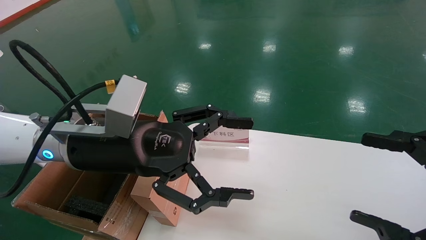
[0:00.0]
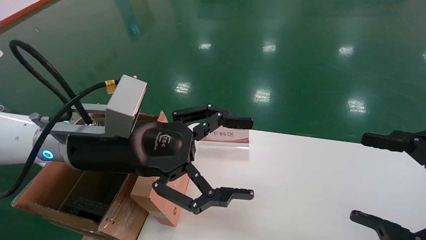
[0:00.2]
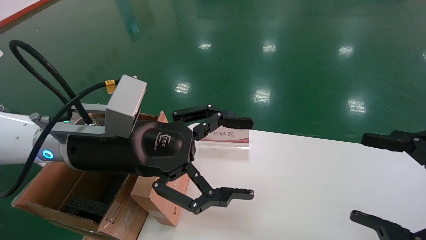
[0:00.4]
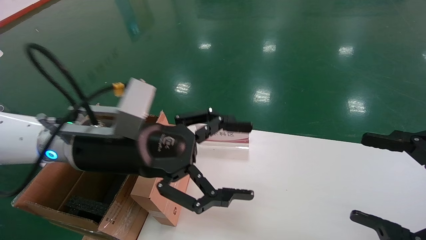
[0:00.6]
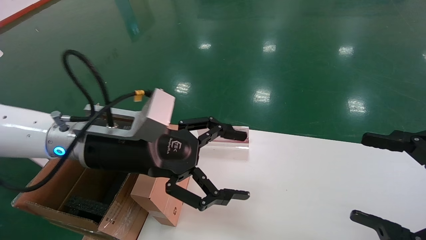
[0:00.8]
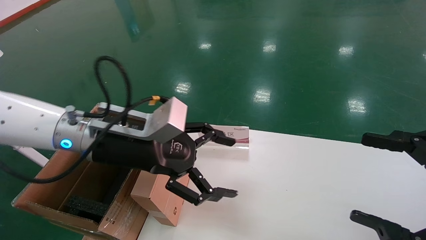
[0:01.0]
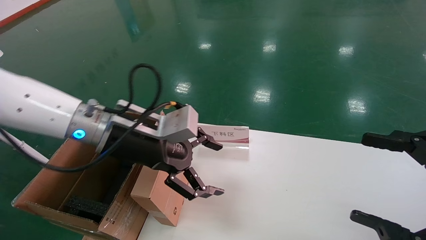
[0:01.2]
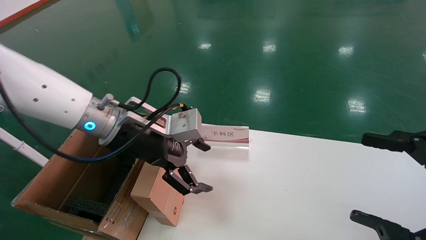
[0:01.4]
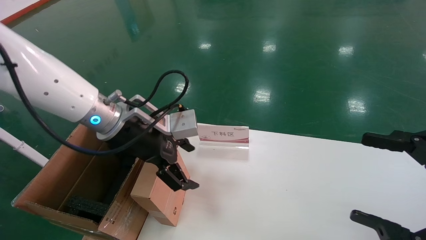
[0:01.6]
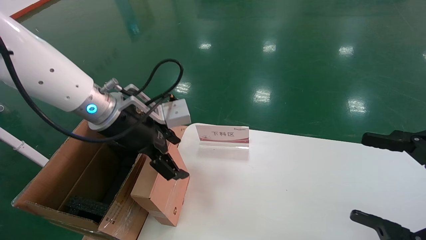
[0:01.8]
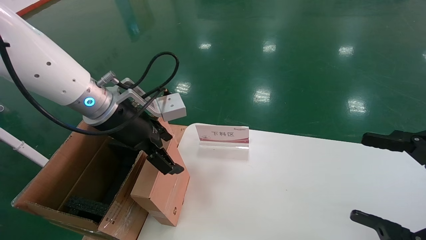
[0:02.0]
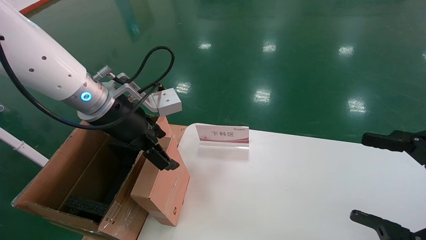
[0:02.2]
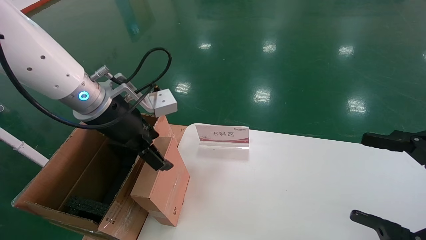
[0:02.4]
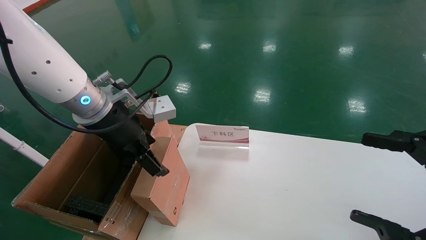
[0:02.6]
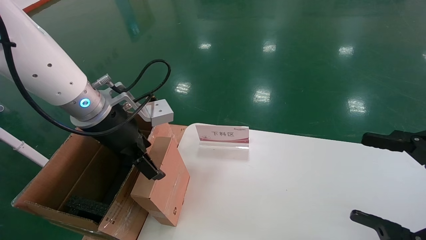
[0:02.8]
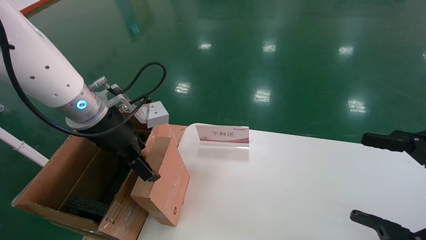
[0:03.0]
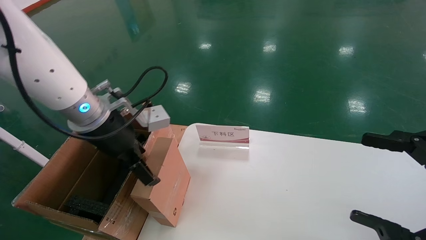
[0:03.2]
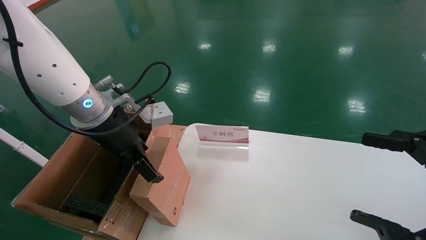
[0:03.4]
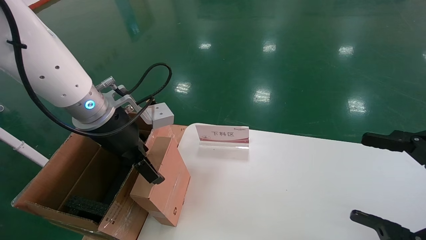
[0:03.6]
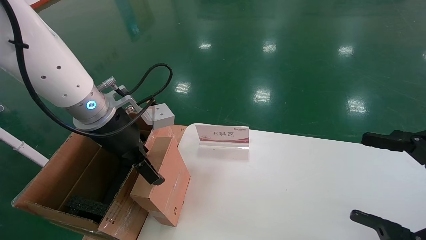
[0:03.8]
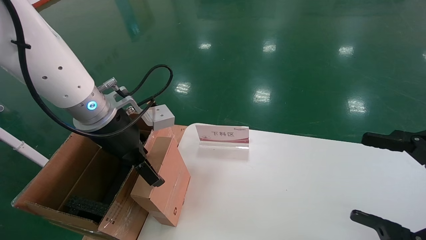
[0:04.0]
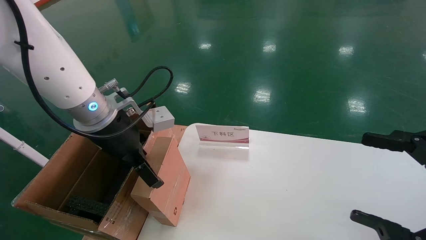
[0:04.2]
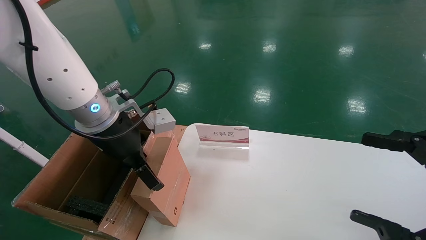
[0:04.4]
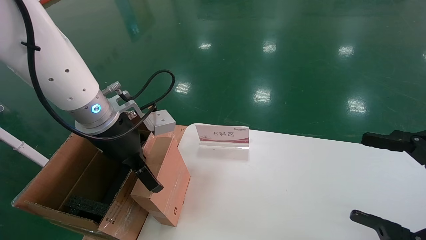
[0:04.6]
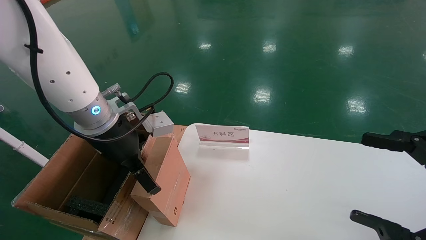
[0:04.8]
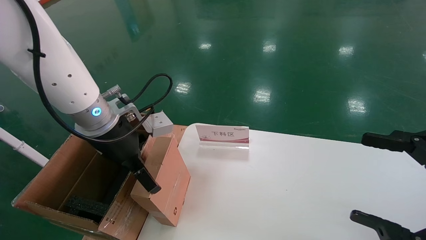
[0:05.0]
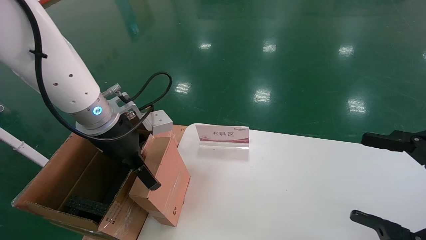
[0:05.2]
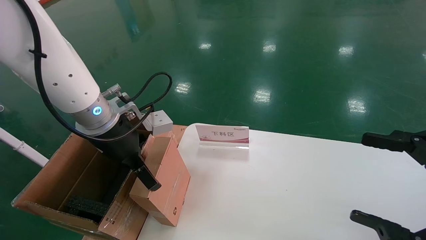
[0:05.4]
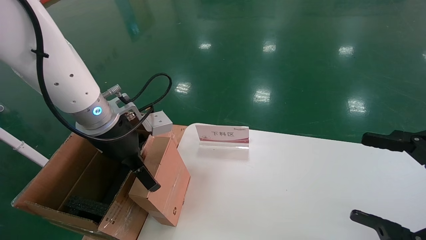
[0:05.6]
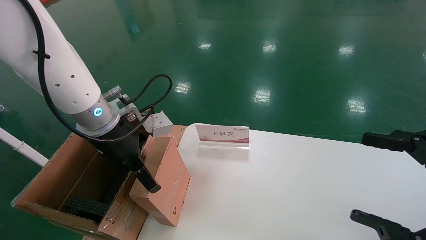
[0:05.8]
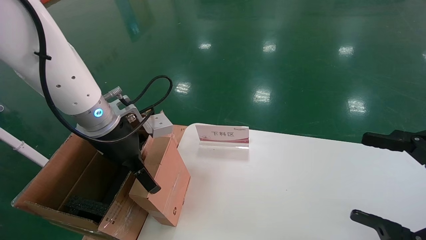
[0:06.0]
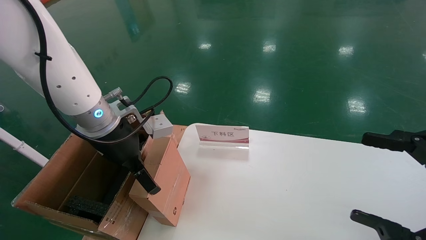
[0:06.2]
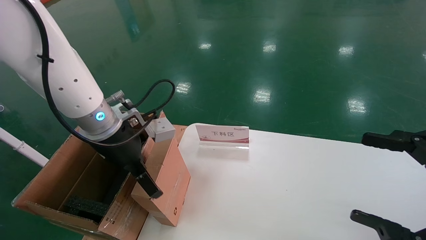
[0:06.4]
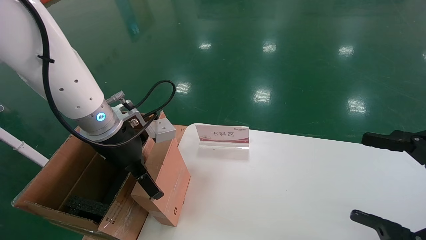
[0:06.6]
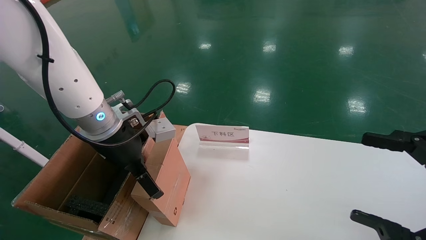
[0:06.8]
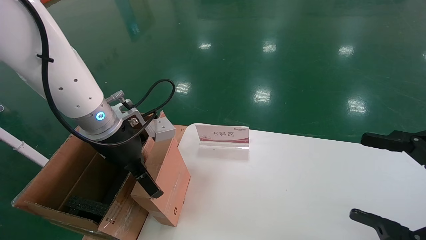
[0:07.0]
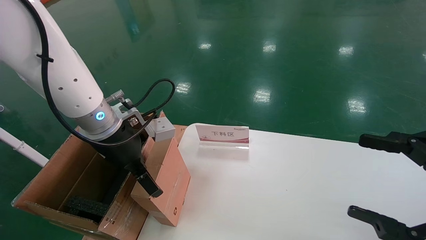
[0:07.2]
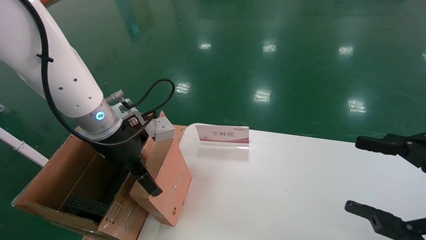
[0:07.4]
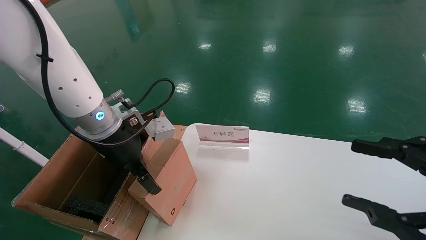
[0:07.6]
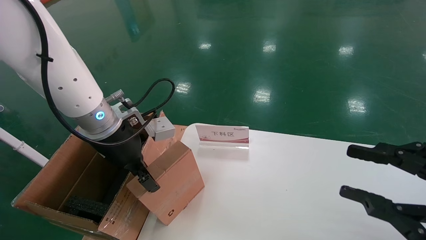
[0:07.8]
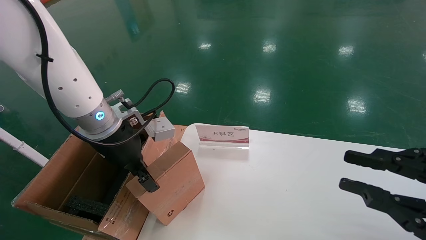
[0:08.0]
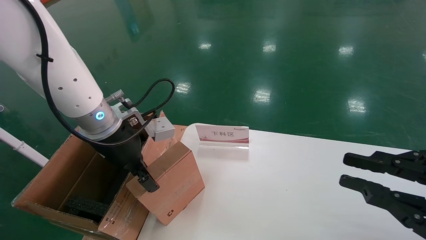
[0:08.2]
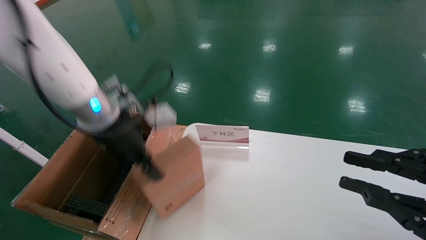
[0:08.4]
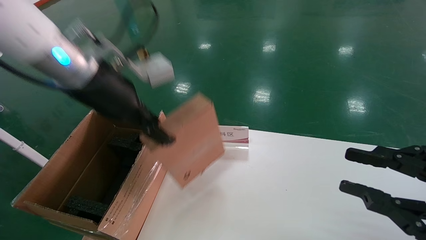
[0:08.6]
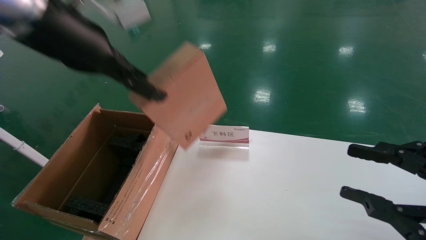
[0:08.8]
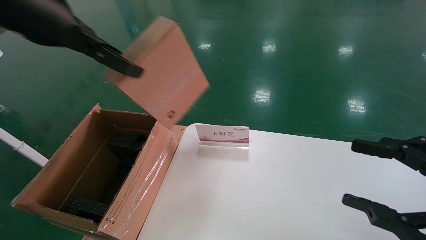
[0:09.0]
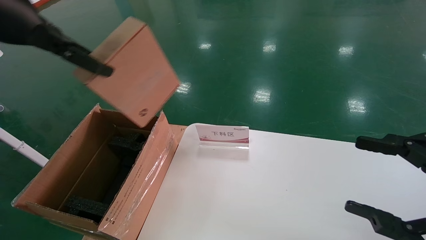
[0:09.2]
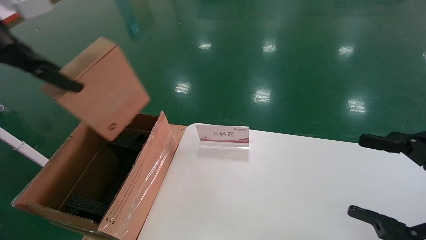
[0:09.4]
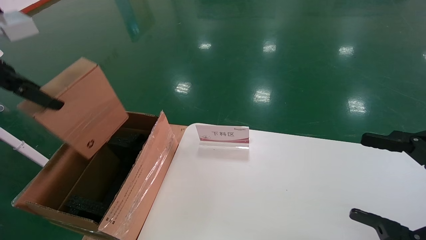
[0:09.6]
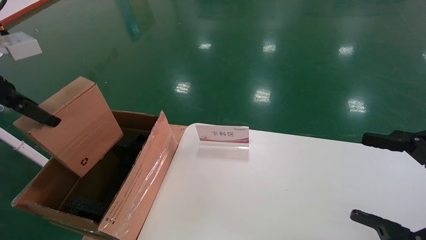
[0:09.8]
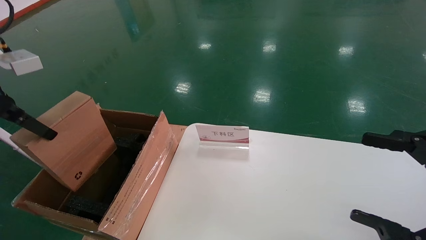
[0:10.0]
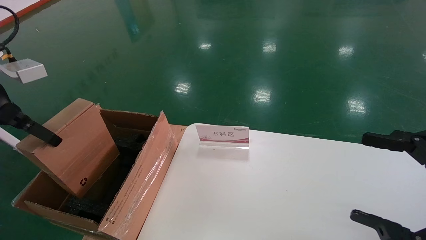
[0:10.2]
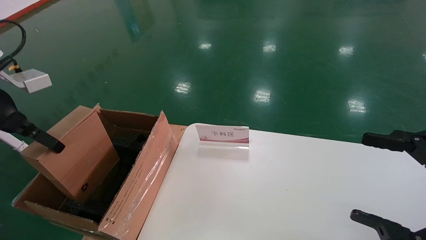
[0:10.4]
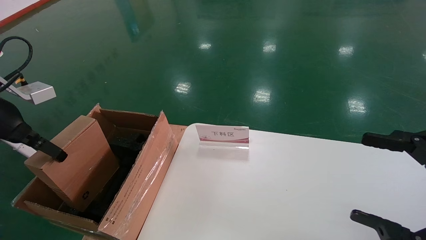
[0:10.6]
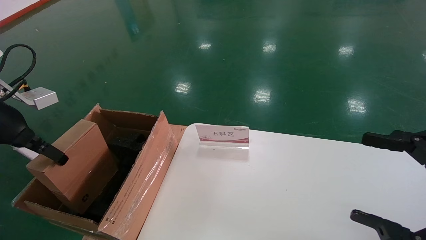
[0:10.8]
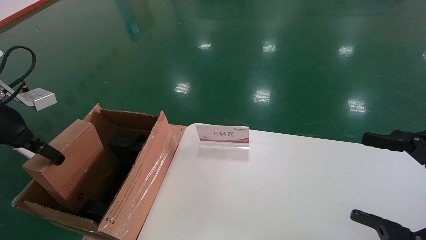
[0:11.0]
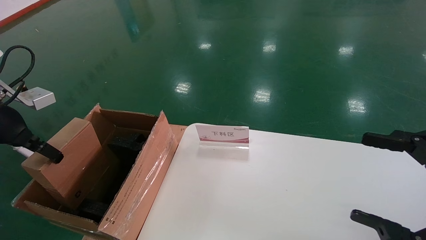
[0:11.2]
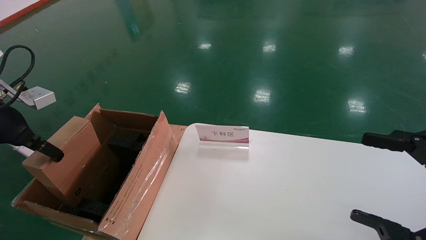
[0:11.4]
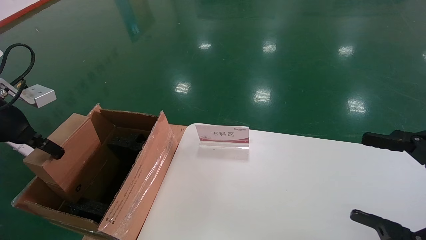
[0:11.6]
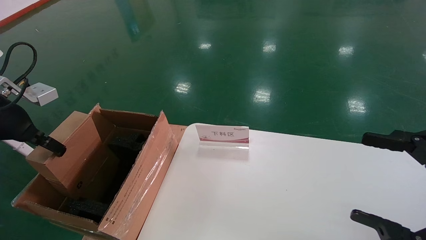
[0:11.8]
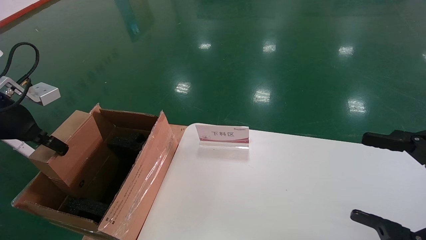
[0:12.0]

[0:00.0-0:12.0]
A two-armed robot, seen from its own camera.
Task of the whole recording: pick up the small cardboard box and load it into the large cardboard box.
Step, 0:00.8 to 0:05.6: Pick up the mouse and power cord box.
0:00.0 to 0:01.6: The left gripper is displaced forward by roughly 5 cm.
0:03.0 to 0:06.0: The grippers make only small movements.
0:06.0 to 0:07.6: The left gripper closes.
0:07.6 to 0:09.0: The left gripper is displaced upward by approximately 20 cm, and closes.
0:09.0 to 0:10.4: The right gripper opens its fingers, while the left gripper shifts some 20 cm to the left and downward.
0:10.4 to 0:12.0: The left gripper moves about 5 cm.

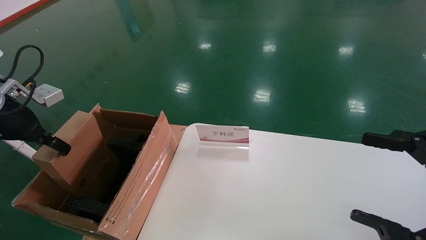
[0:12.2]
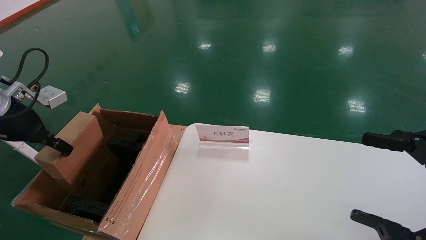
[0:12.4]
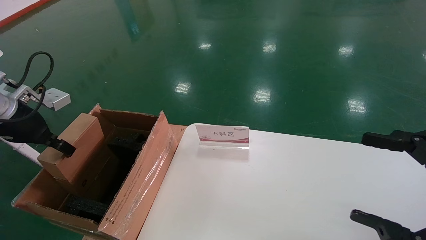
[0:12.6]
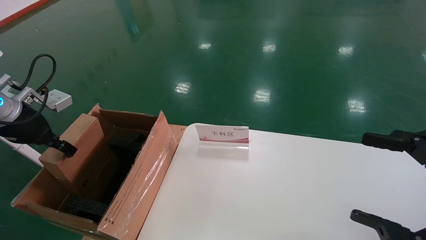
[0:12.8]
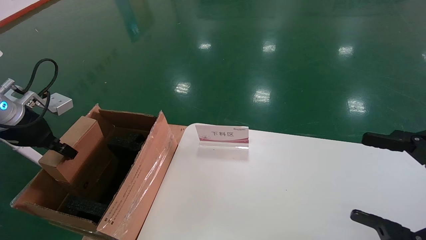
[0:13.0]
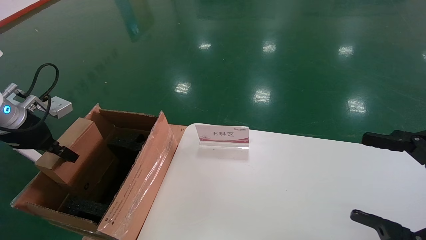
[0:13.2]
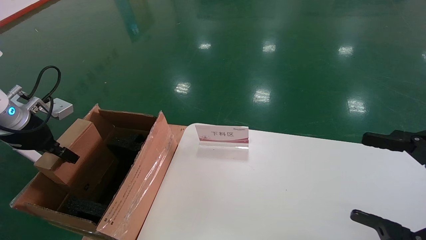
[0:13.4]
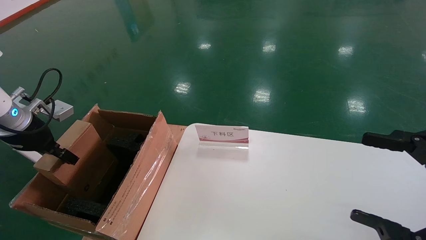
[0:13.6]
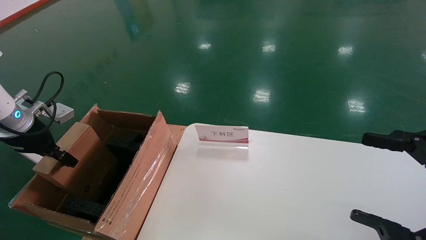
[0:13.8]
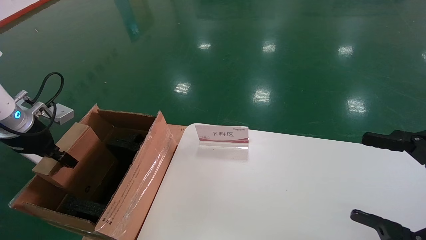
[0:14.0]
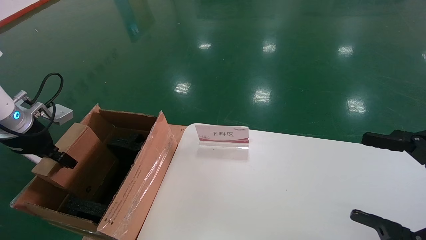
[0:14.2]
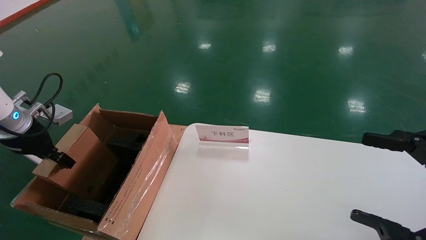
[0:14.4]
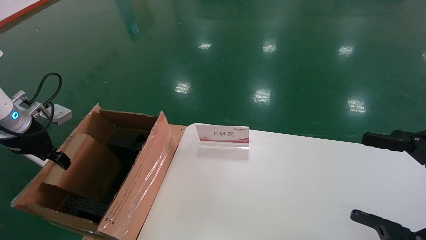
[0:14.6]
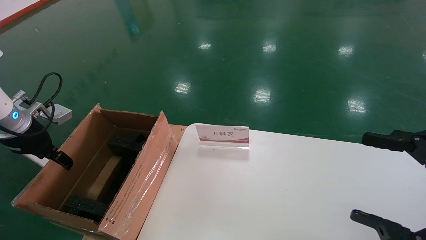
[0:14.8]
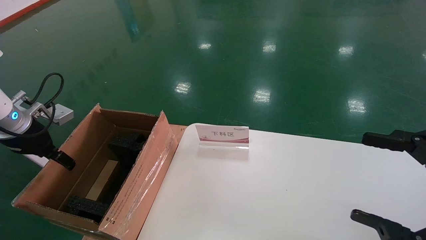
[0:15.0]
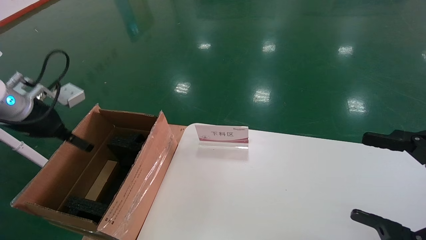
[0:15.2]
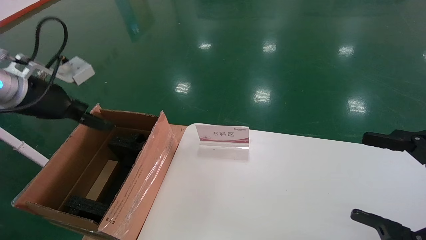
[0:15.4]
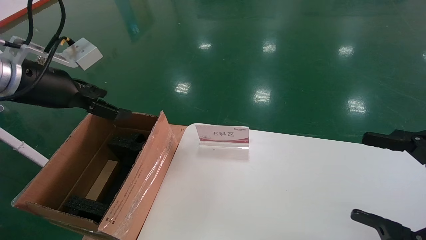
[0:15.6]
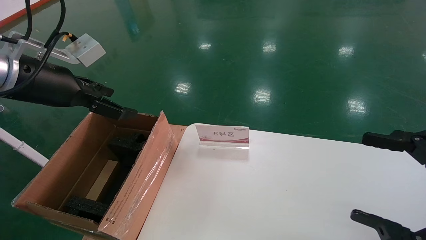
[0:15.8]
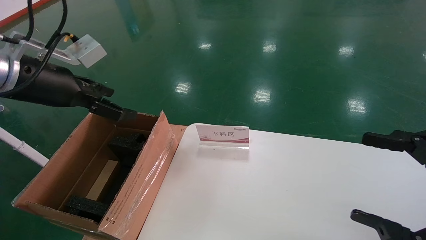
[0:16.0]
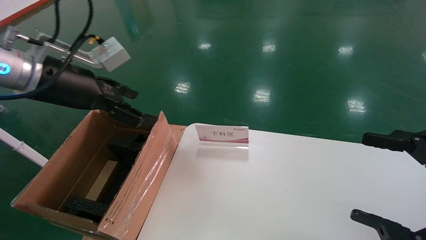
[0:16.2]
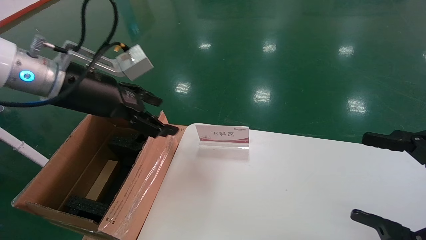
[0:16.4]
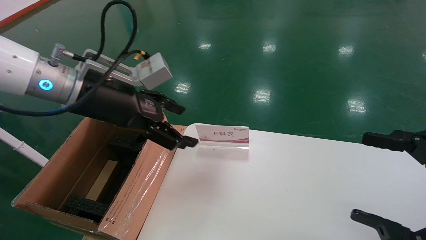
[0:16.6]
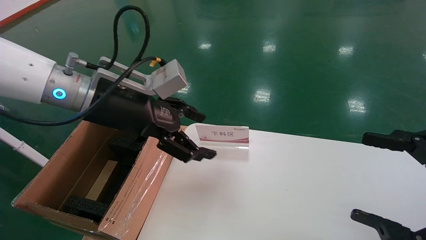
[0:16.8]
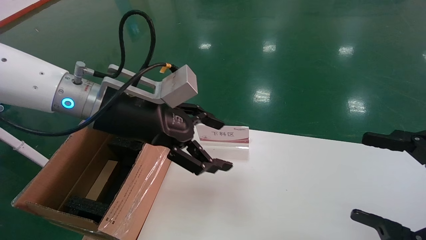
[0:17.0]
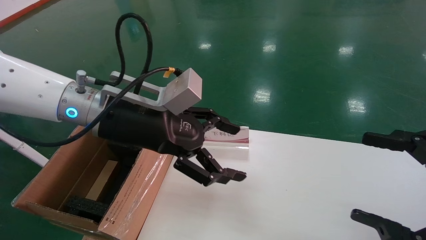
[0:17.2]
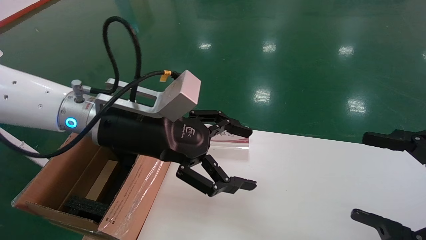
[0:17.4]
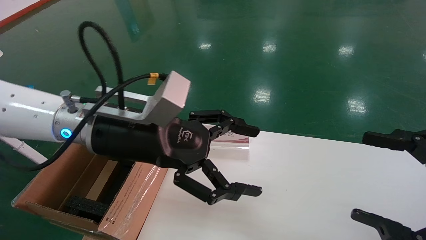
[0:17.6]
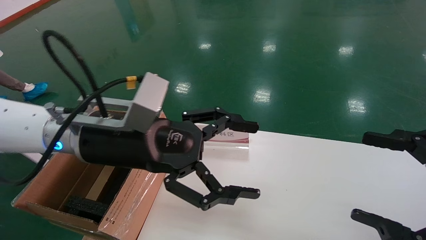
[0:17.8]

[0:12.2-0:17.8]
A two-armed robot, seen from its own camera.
Task of the whole recording: pick up the small cardboard box and load it into the large cardboard box.
0:12.2 to 0:13.6: The left gripper moves approximately 5 cm.
0:13.6 to 0:15.0: The left gripper opens its fingers.
0:15.0 to 0:16.4: The left gripper shifts roughly 20 cm to the right and upward.
0:16.4 to 0:17.8: The left gripper moves to the right and downward, about 10 cm.
